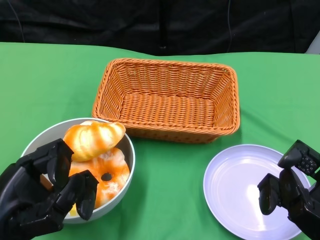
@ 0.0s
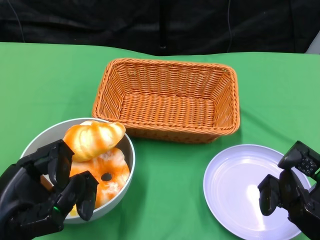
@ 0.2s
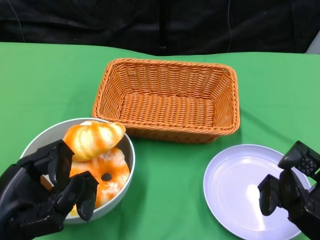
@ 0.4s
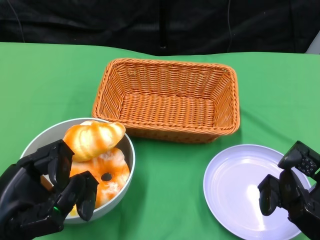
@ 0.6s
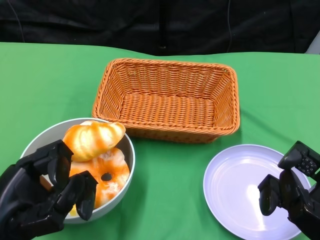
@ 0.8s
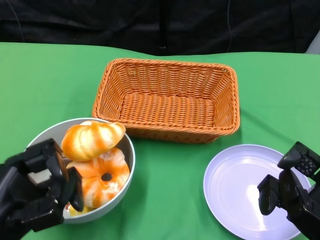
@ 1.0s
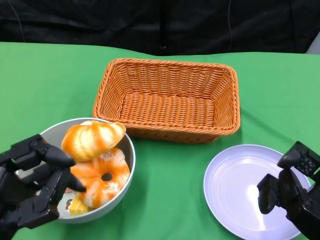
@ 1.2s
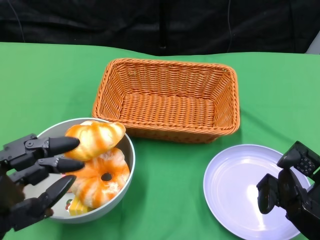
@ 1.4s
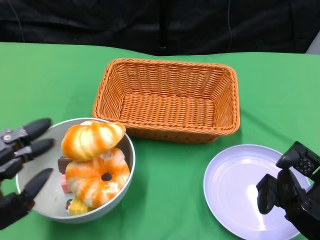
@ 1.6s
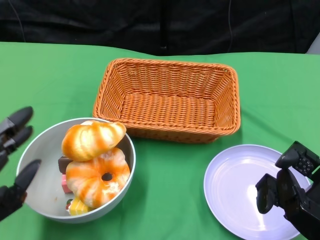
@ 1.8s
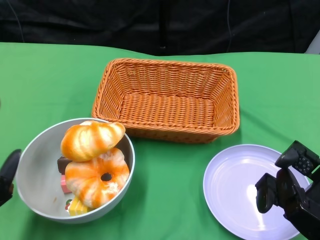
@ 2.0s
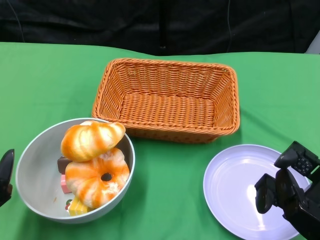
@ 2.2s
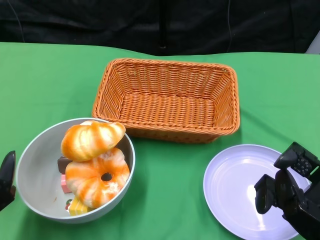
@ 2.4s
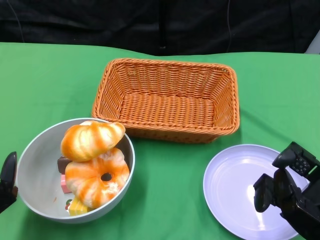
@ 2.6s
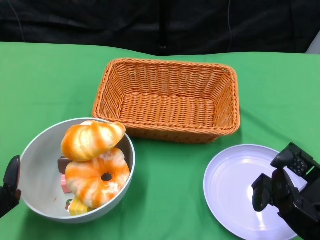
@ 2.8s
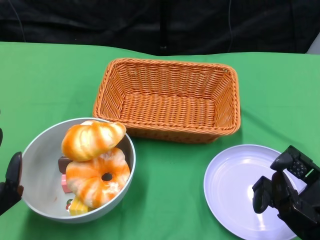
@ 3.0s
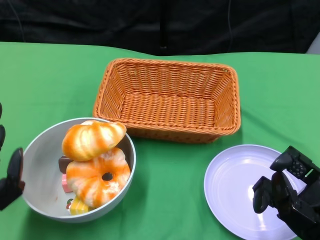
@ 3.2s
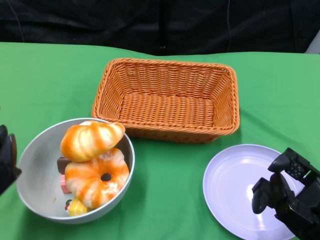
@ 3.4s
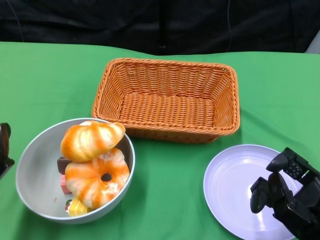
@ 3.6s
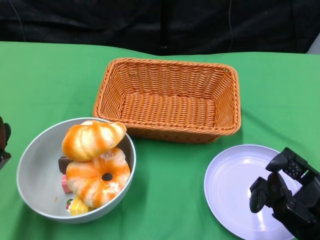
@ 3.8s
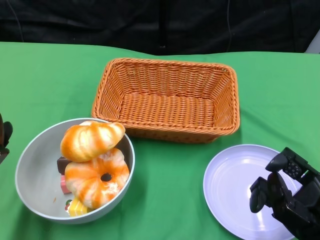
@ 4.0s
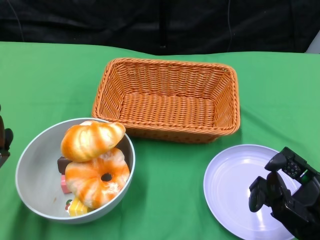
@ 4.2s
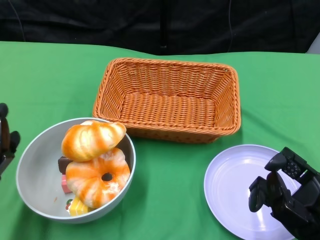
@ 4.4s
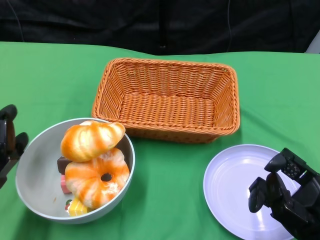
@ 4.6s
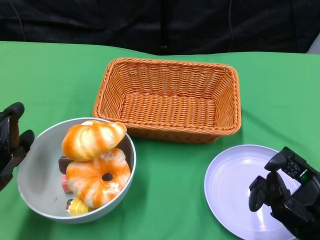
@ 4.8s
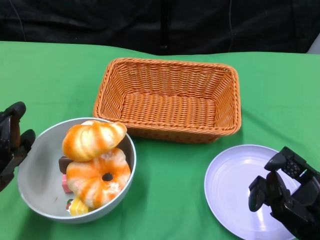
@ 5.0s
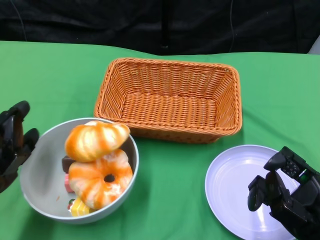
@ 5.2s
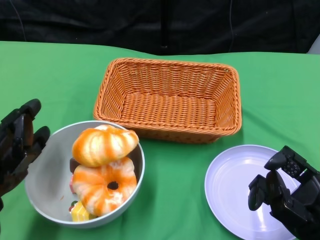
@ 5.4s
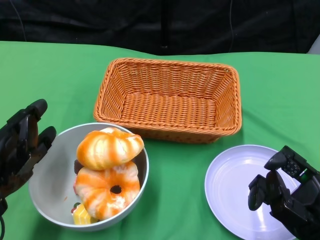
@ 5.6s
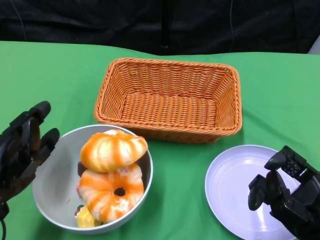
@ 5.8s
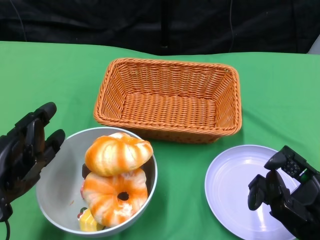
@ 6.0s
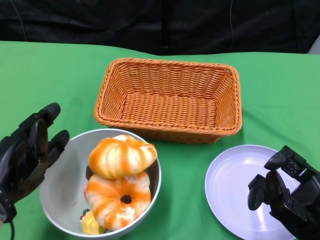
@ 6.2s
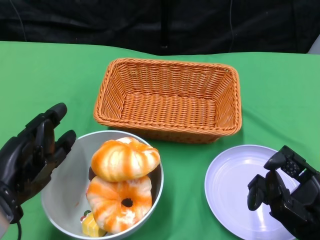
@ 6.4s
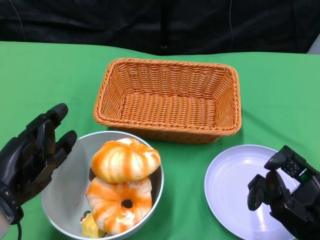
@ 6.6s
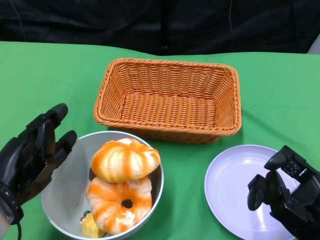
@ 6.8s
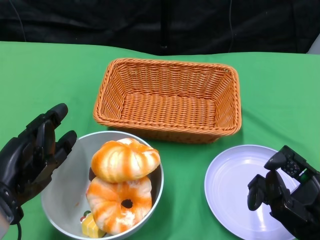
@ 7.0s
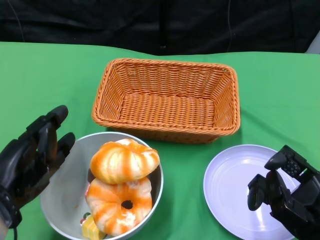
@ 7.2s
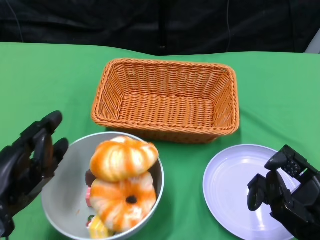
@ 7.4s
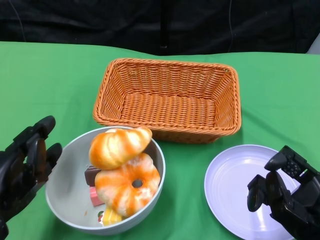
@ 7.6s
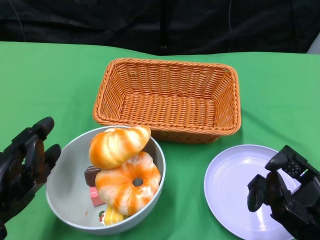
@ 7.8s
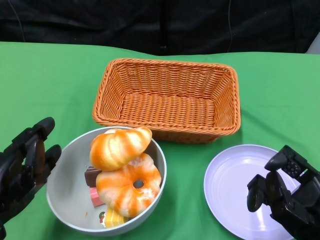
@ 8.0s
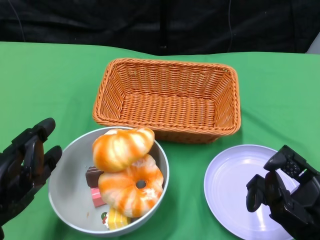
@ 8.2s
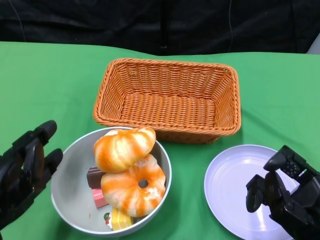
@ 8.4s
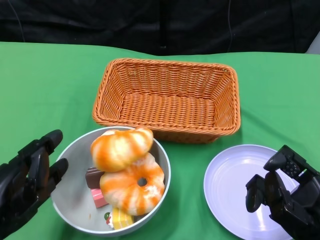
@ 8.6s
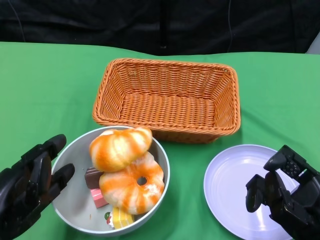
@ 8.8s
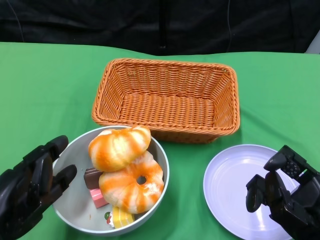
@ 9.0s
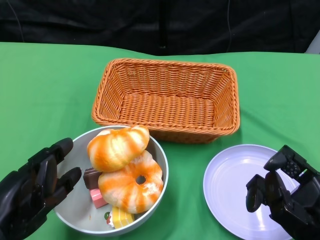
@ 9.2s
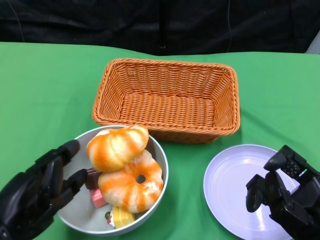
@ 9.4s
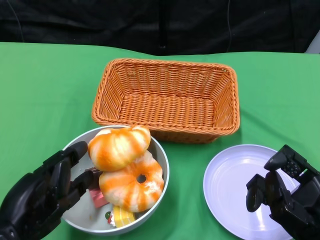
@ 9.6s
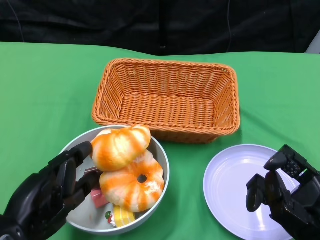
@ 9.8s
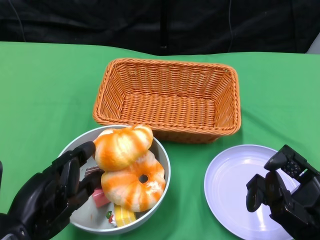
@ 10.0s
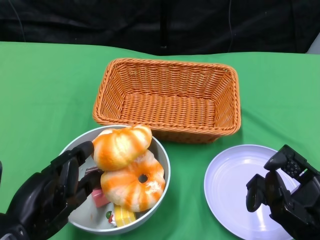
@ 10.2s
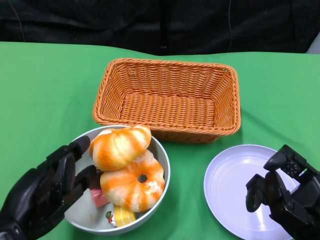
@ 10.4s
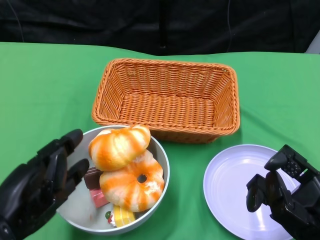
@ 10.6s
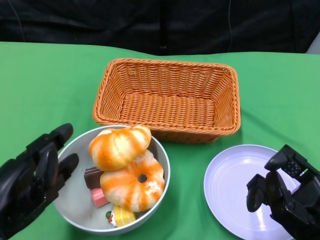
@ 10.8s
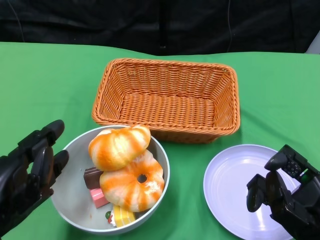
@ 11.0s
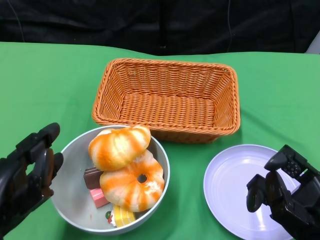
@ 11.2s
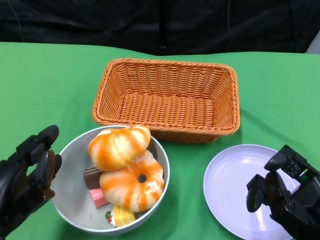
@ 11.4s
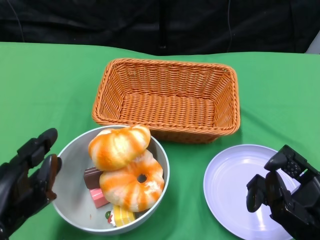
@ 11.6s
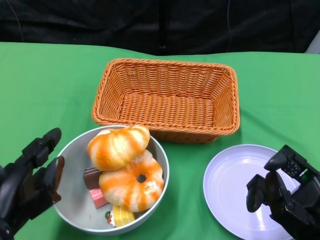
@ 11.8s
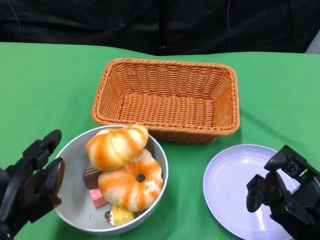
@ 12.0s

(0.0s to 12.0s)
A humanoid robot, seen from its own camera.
1.6s - 3.0s: The hands make only small movements.
3.0s - 4.4s: The left hand heads forward, covering some 5 cm.
6.0s - 10.4s: The hands move only a little.

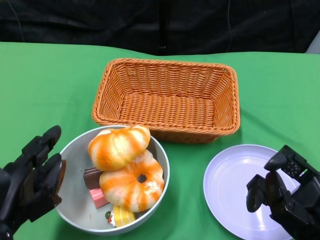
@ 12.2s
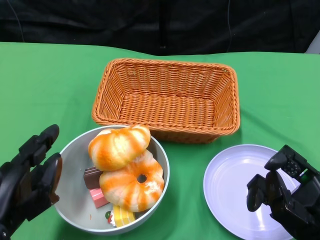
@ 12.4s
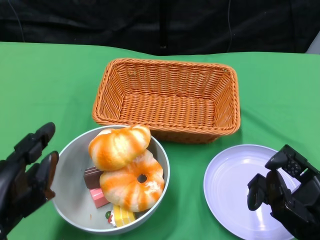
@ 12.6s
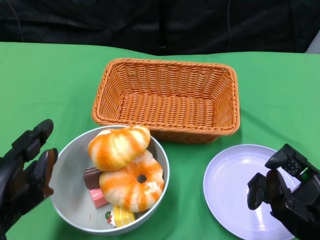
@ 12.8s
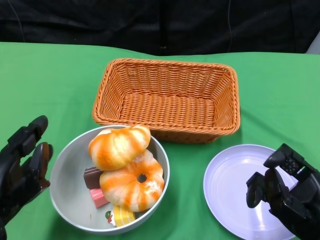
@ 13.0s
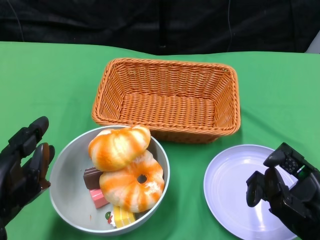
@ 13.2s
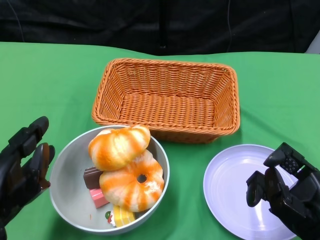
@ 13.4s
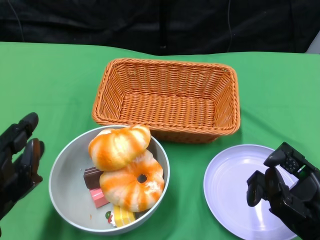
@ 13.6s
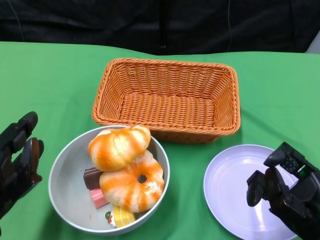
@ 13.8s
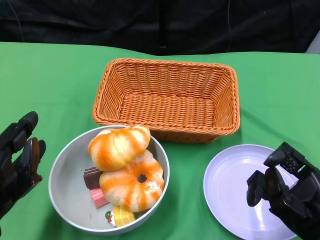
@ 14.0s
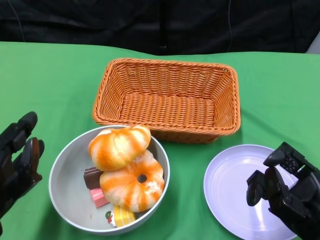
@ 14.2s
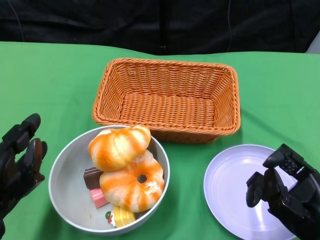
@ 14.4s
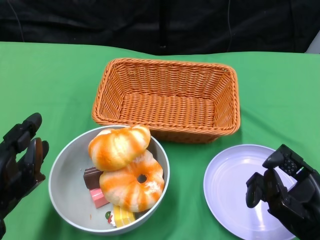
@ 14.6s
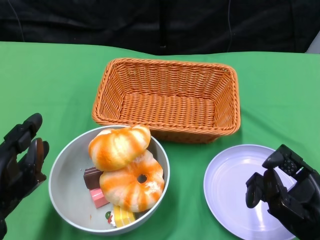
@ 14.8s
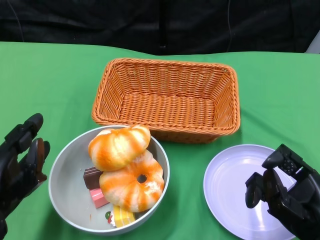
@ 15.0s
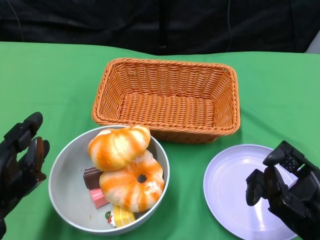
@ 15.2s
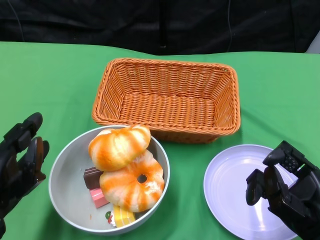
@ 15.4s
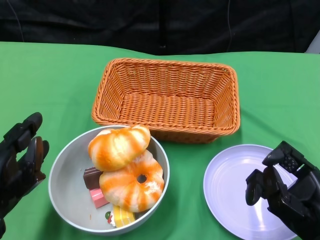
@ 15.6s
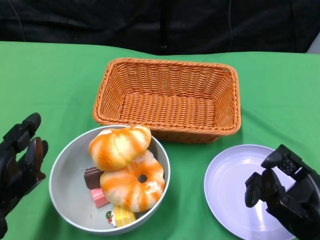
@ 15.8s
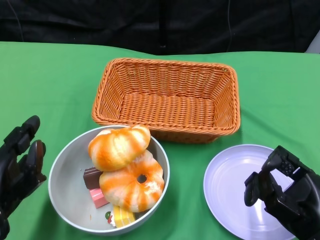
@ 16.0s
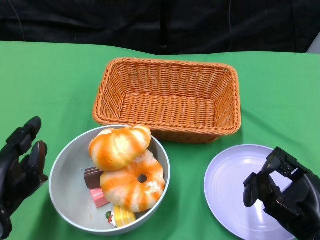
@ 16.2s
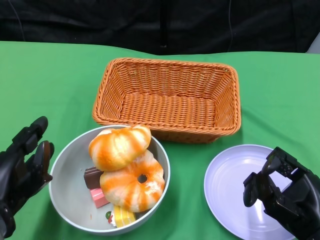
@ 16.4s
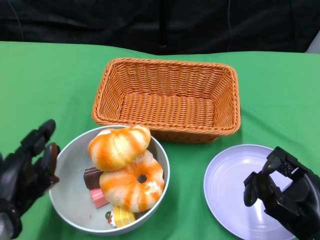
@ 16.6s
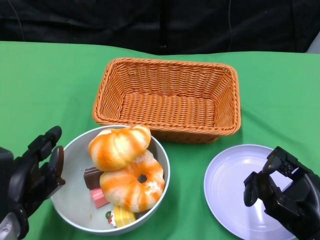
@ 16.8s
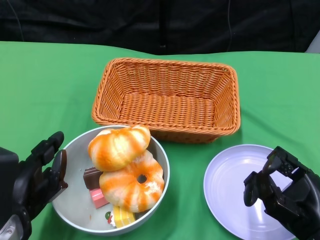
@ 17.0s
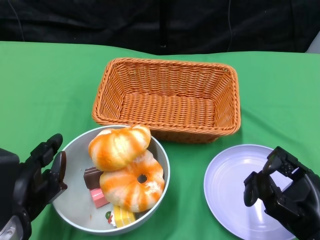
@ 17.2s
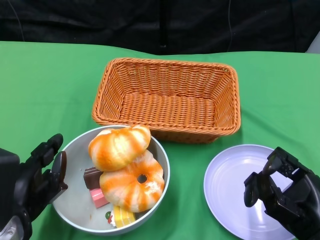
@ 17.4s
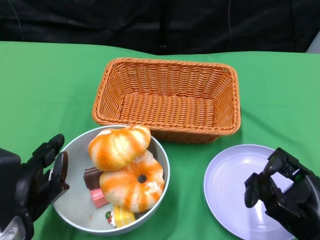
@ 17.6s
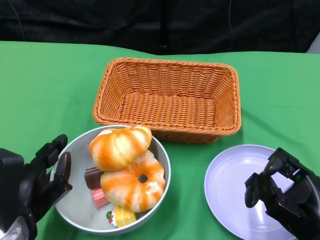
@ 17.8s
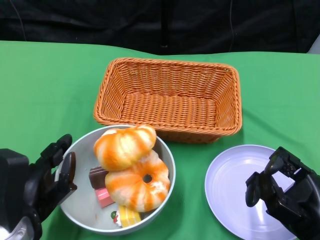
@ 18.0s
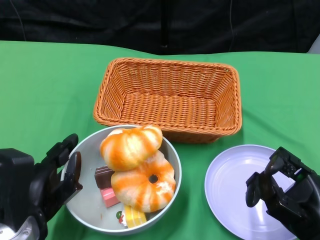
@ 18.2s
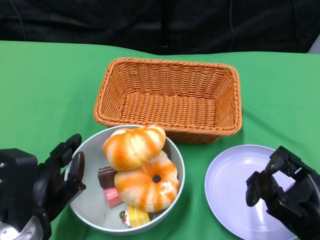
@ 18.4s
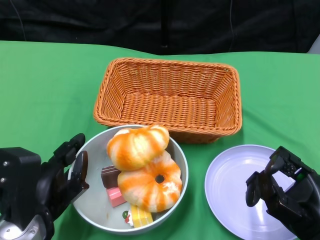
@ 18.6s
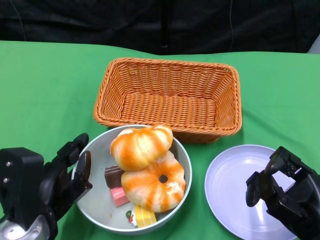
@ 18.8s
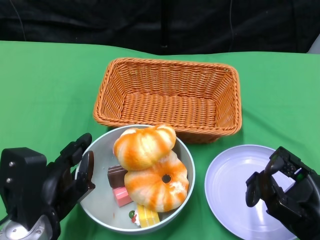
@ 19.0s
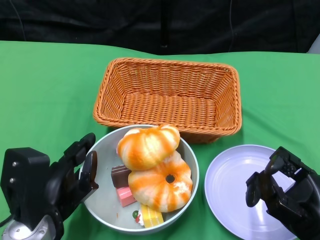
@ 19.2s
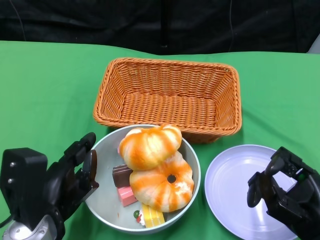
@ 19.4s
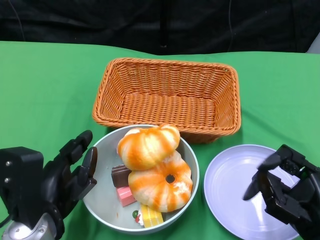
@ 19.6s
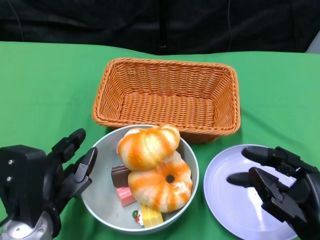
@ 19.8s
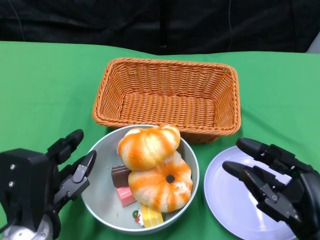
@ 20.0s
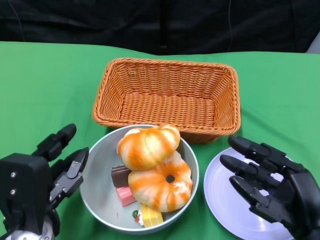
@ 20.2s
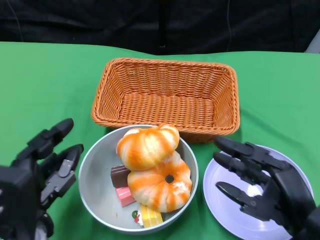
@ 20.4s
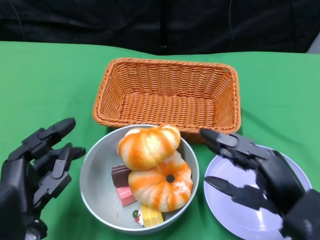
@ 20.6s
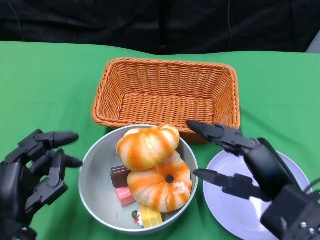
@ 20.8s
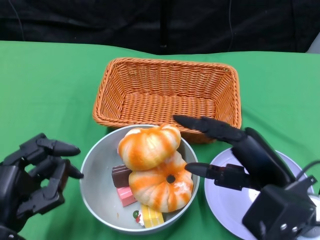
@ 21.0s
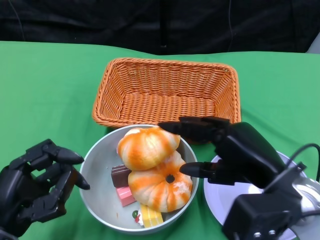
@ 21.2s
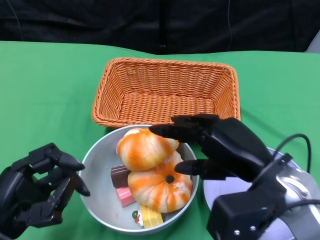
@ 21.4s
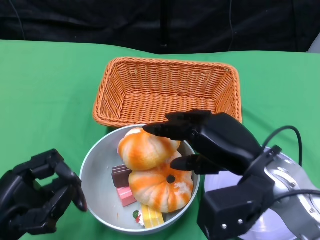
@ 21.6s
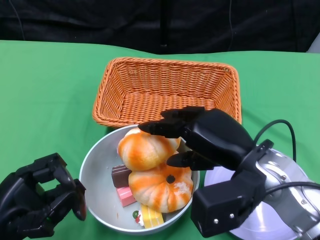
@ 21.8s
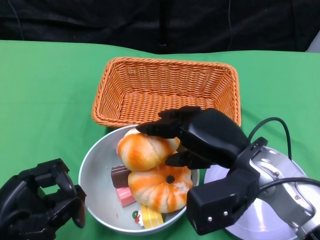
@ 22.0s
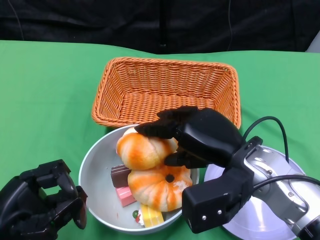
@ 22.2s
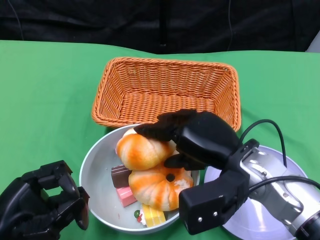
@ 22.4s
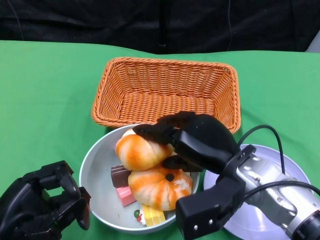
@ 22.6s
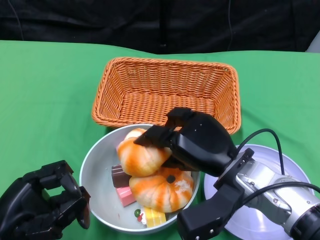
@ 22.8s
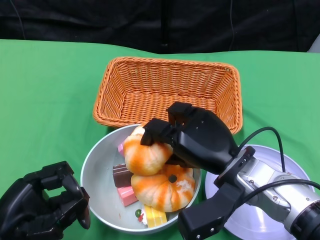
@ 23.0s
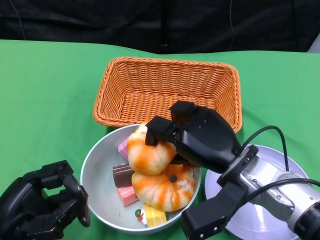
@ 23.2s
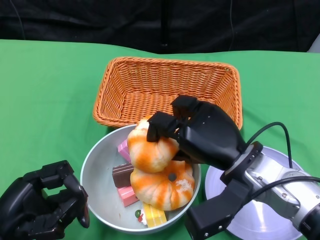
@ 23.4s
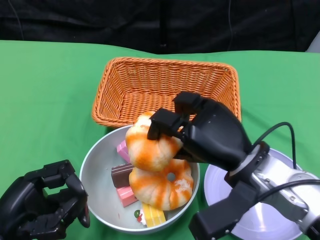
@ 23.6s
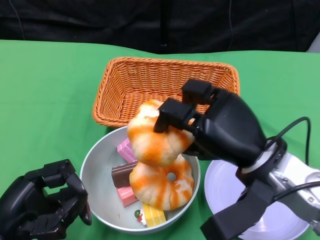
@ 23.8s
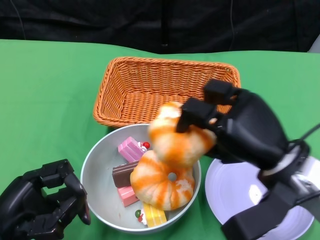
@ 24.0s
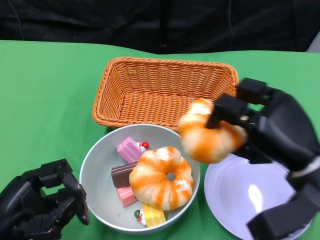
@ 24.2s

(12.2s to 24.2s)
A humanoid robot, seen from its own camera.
Step, 12.2s - 19.6s: Push the bowl to the center of the table using the left gripper.
12.2s - 13.8s: The hands stay close to where they were, moving slightly.
13.8s - 15.2s: Both hands stay put.
15.2s - 16.6s: There are only small adjustments of the hands.
19.8s - 21.2s: The left hand ends up approximately 5 cm from where it was, while the right hand is displaced upward, to the left and forward by roughly 10 cm.
21.2s - 22.6s: The right hand travels to the left by some 5 cm.
22.6s - 24.2s: The right hand heads to the right, covering some 10 cm.
